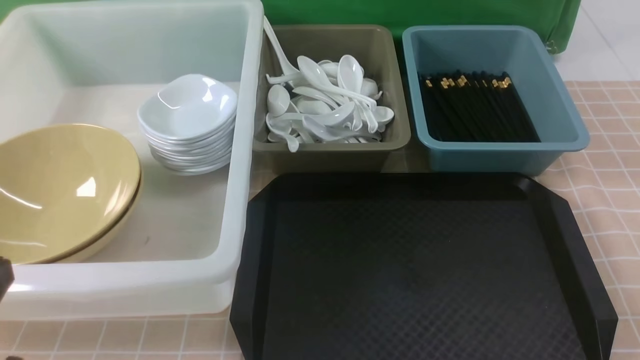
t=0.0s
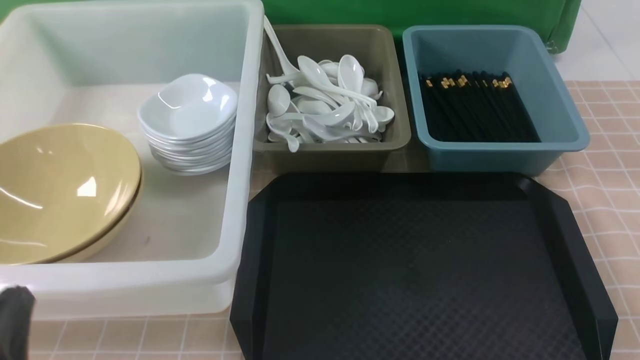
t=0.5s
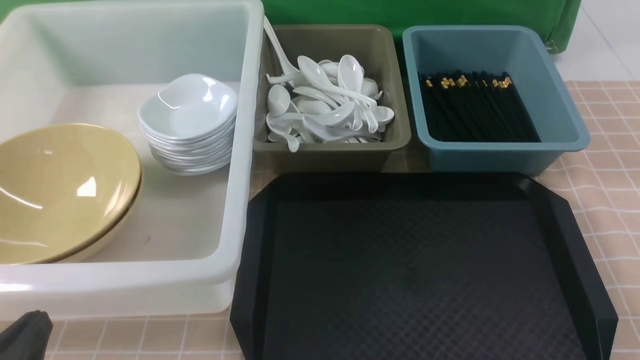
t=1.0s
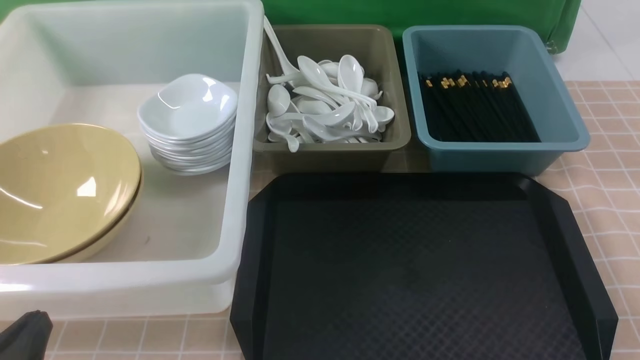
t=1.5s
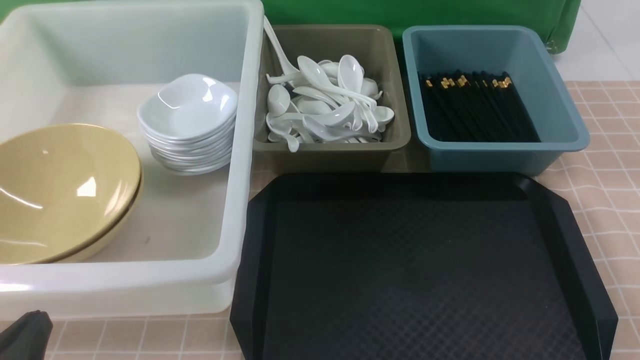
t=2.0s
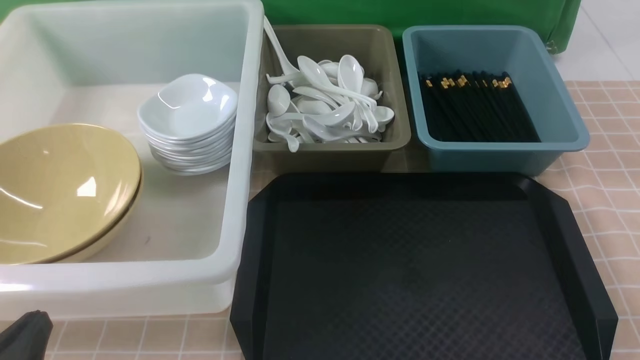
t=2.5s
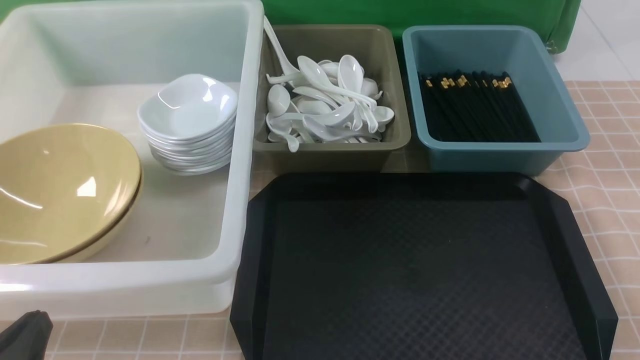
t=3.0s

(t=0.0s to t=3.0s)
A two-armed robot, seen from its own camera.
Task of the whole recording: on brown table put chopsticks spoon bowls plates into blue grey white boxes.
t=0.0s - t=1.5s: The left gripper heads downward, covering some 10 cm.
t=1.5s - t=3.0s: The two grippers keep their place.

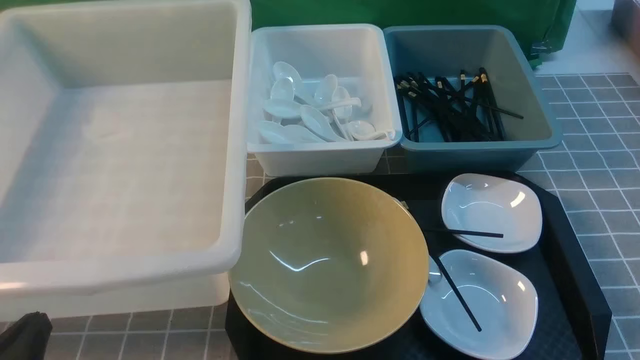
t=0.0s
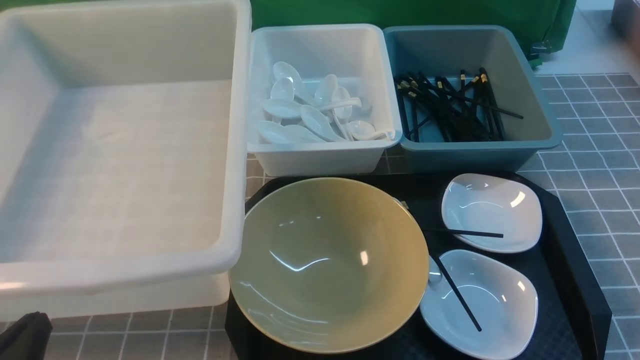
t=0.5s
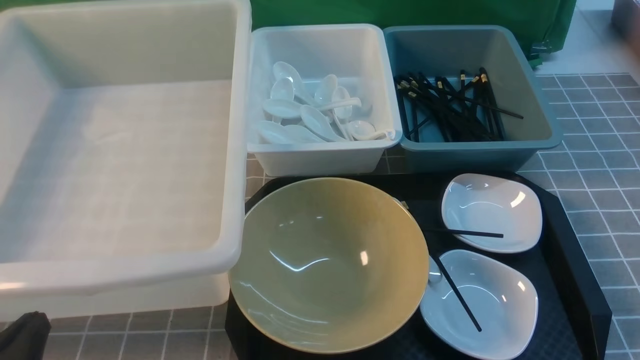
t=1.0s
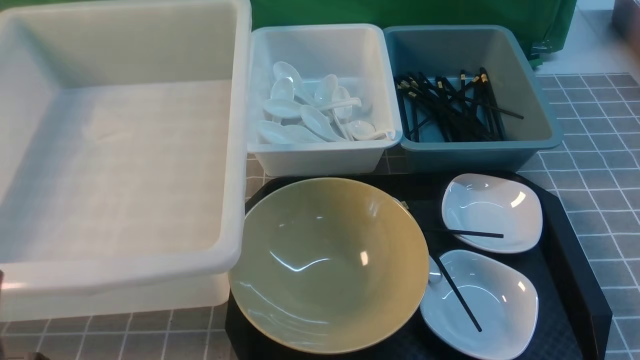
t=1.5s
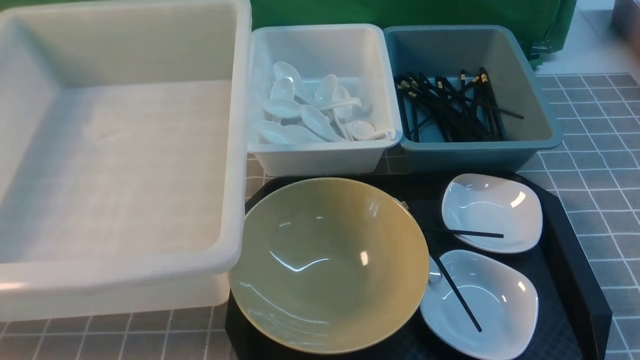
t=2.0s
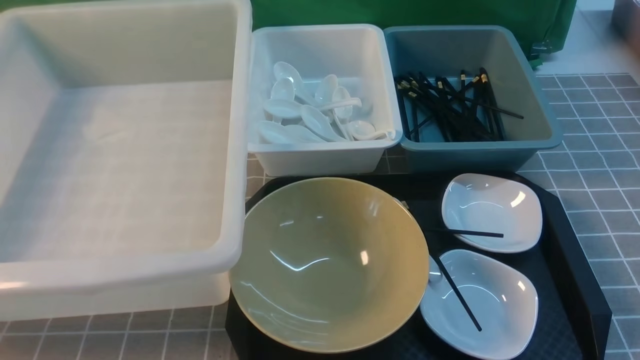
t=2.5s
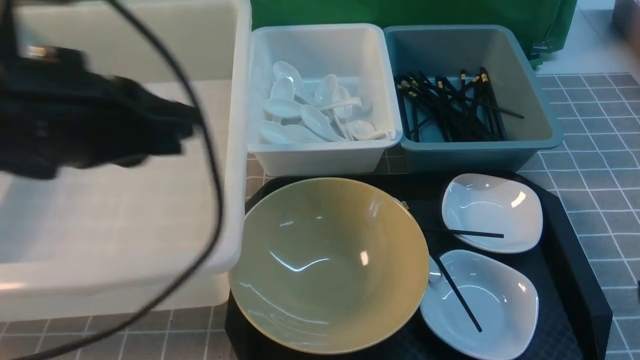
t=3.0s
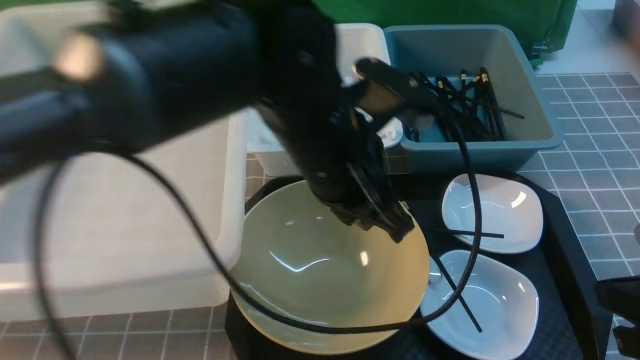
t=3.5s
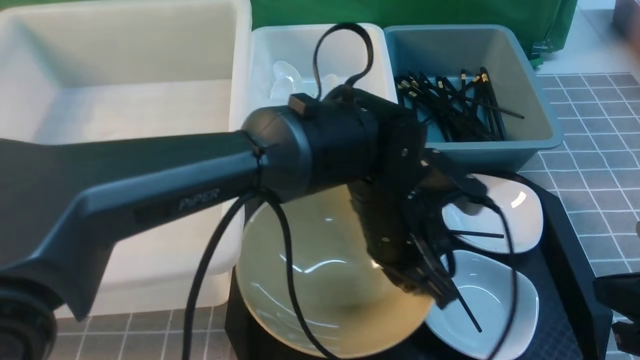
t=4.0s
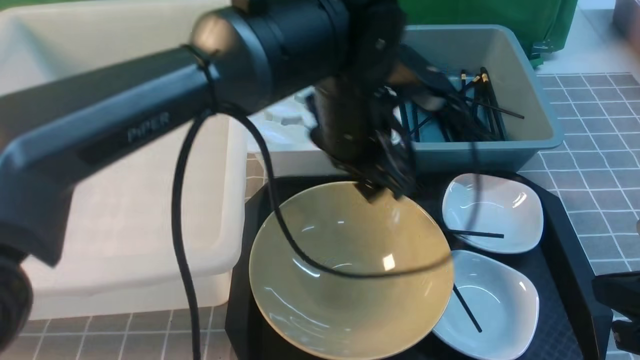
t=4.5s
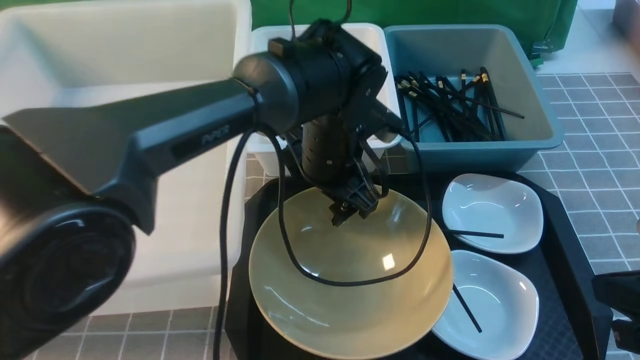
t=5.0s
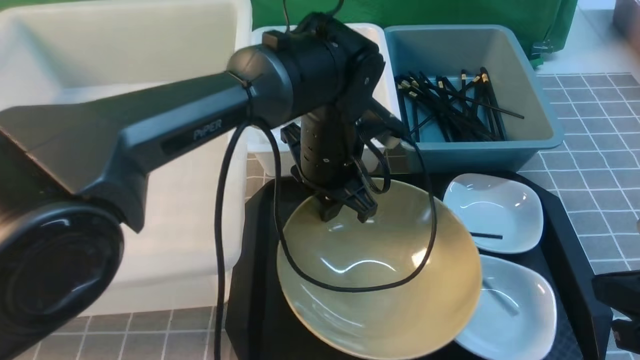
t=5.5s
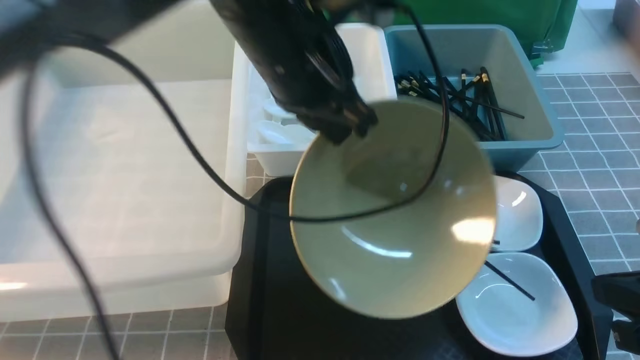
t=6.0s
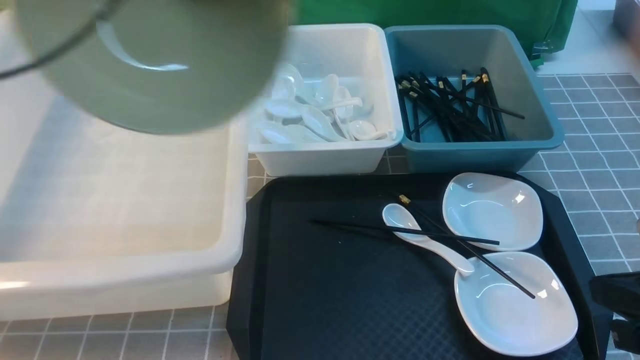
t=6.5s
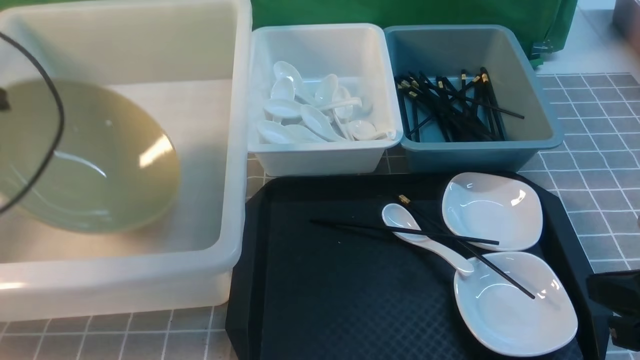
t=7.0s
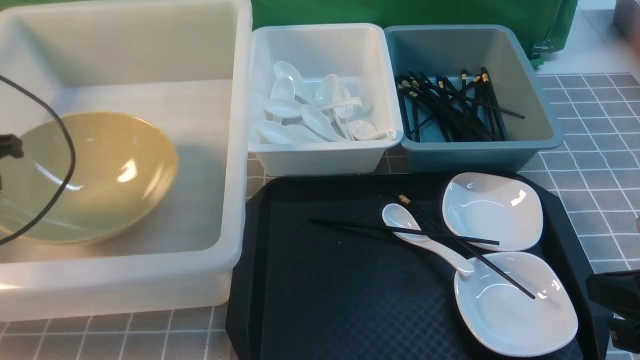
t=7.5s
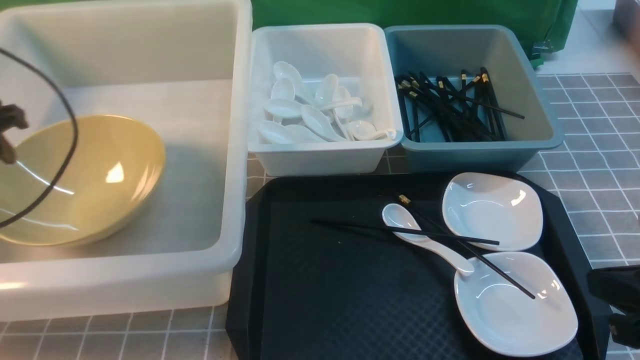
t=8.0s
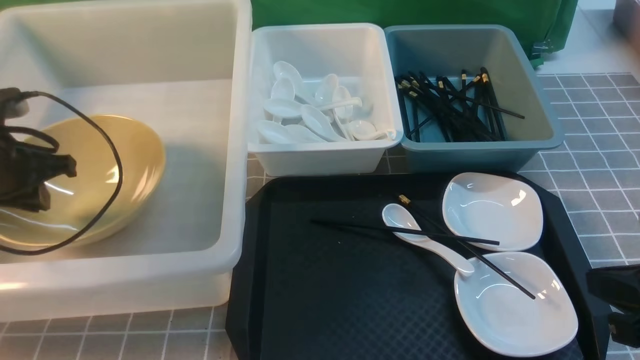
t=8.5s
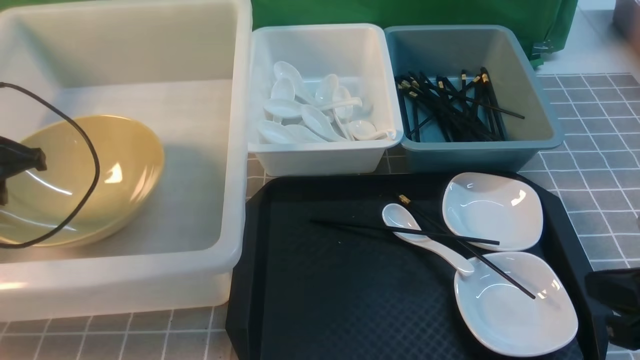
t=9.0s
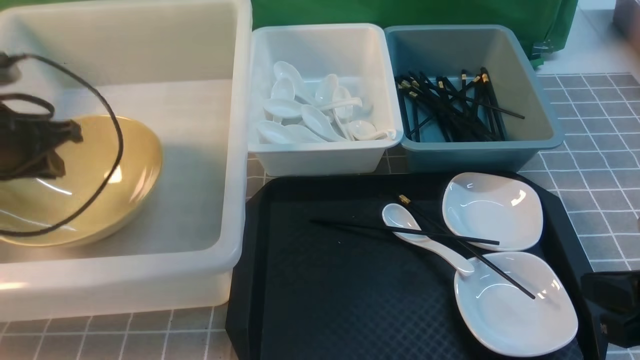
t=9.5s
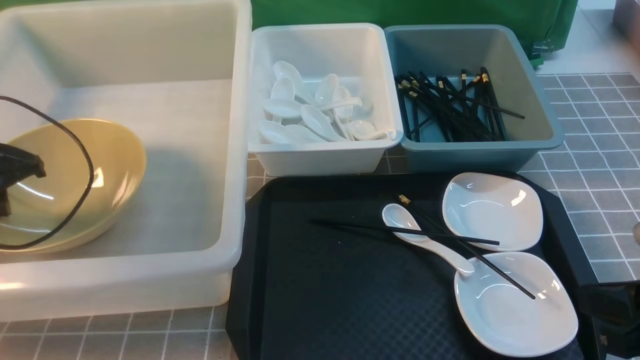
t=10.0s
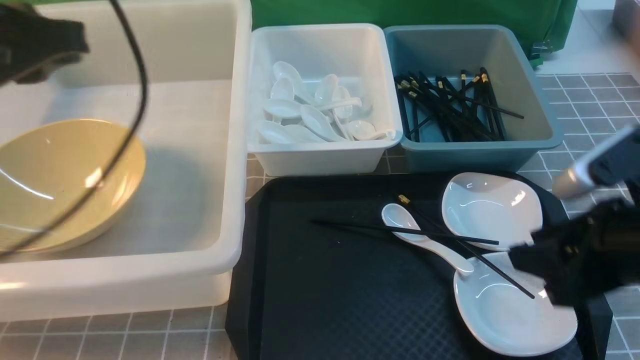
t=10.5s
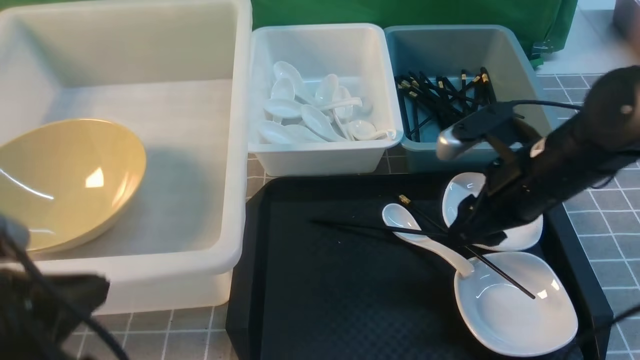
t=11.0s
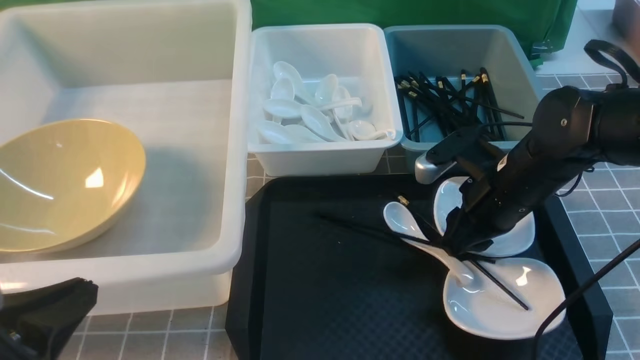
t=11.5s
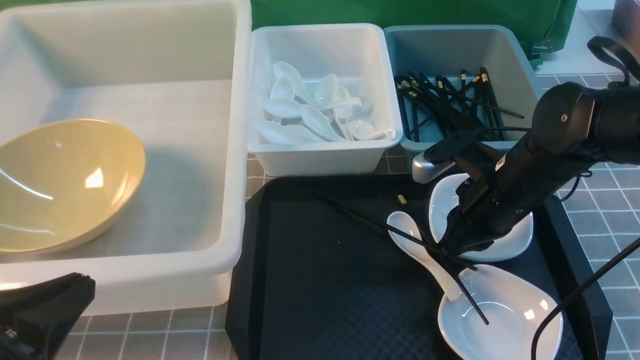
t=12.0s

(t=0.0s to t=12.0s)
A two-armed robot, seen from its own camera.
Task of the whole recording: on grey table put chopsticks spoon bowls plates into blue grey white boxes.
Step, t=0.0s - t=5.5s: use the left arm to grab the yellow noodle bowl on the left.
Step, t=6.0s - t=10.0s: use the left arm to put the noodle bowl into the large storage box on the left.
t=0.0s - t=2.0s: The left gripper travels upward by about 10 cm.
t=2.0s - t=4.0s: The left gripper shifts some 40 cm to the right and forward. The right gripper goes roughly 10 cm forward, and closes.
t=4.0s - t=6.0s: The left gripper goes up and down, some 15 cm each way, reversing 2 times, and opens, then closes again.
t=6.0s - t=8.0s: The left gripper goes about 30 cm to the left, and opens its fingers.
t=8.0s - t=10.0s: The left gripper closes up.
t=10.0s - t=12.0s: The left gripper is displaced backward and to the right by about 30 cm; the right gripper goes approximately 20 cm forward and to the left, and opens, then closes again.

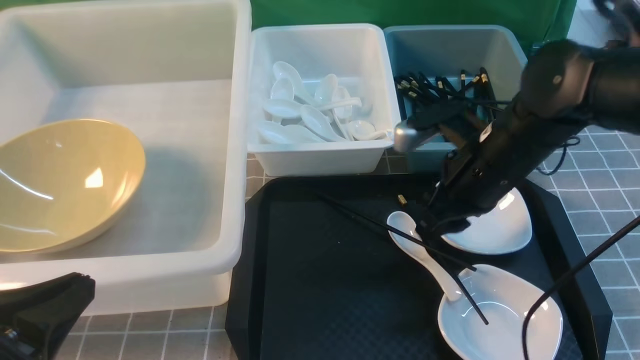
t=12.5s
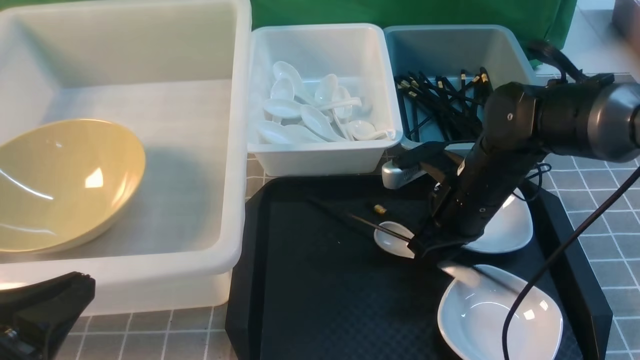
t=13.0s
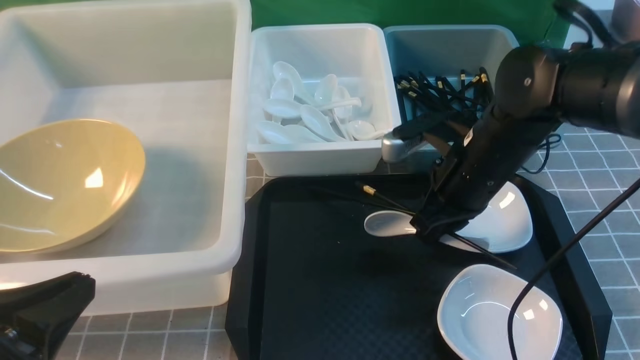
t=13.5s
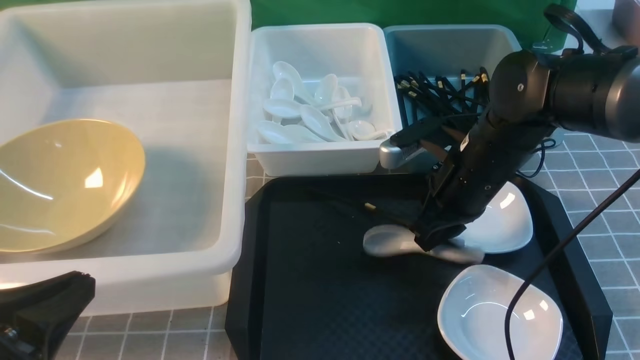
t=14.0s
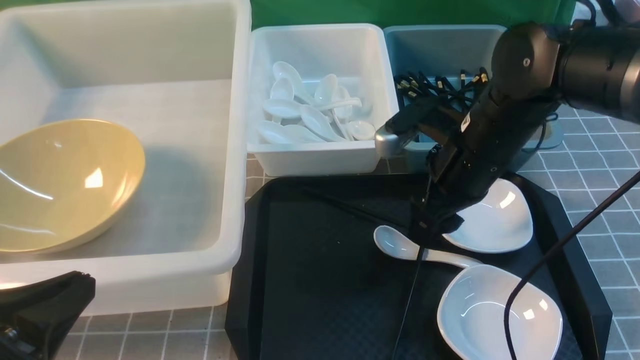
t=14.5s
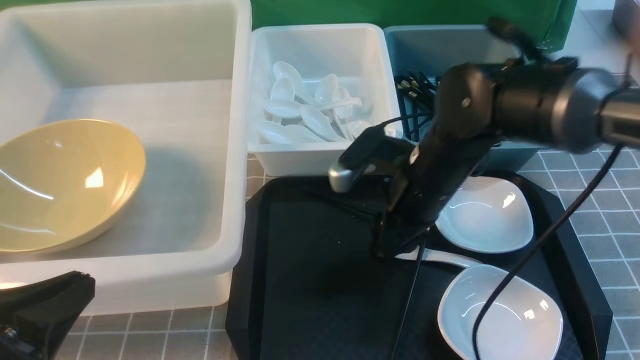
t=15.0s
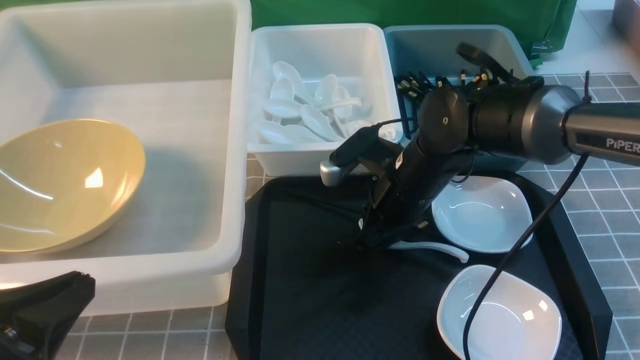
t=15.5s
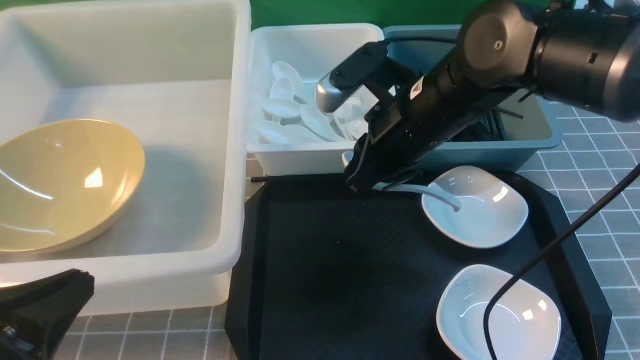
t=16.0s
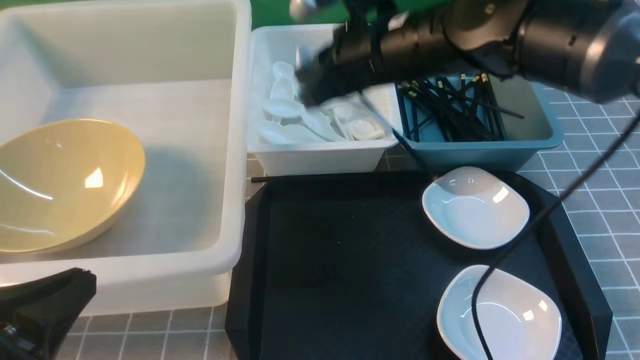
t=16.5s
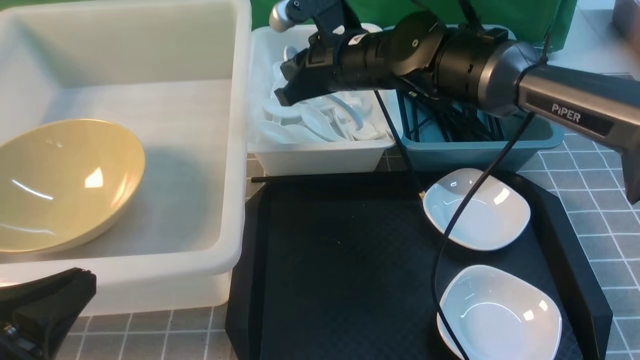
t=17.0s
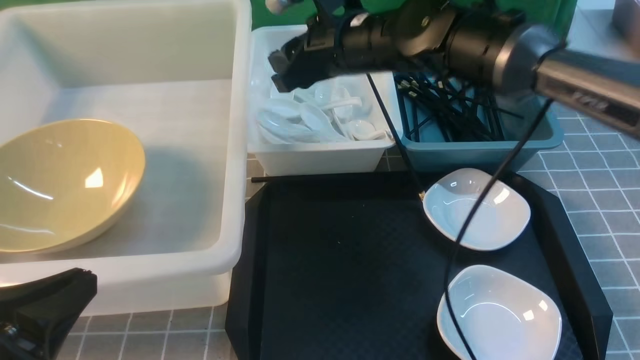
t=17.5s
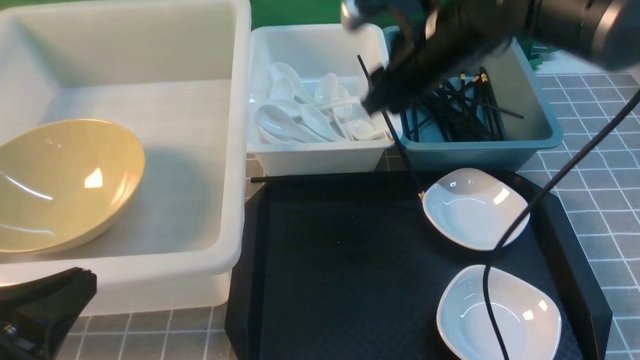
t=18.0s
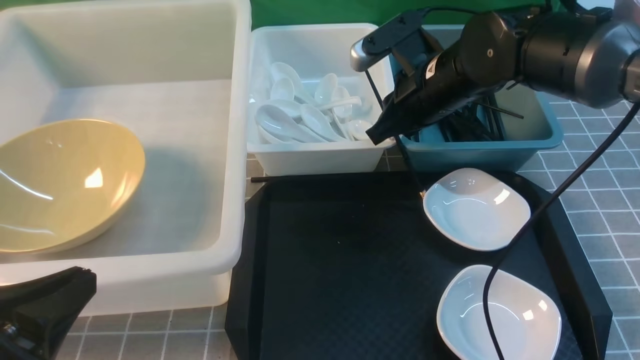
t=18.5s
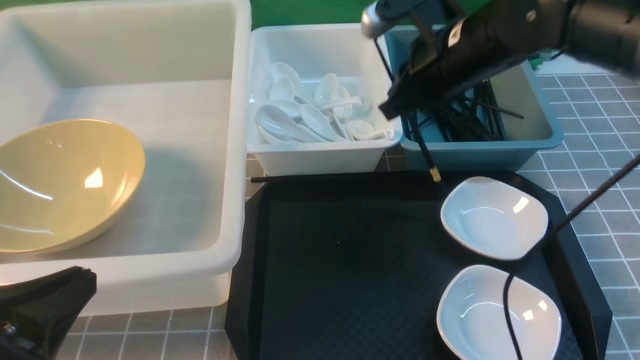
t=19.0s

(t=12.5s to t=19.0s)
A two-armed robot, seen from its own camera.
Task of the whole recording: on grey table put chopsticks spoon bowls plates into blue grey white boxes.
Step, t=12.5s - t=15.5s: use the right arm to grab the soup spoon in the middle.
Step, t=16.0s - t=17.5s: use the right arm to put the soup spoon into the small storage box in the middle.
Step, t=18.0s - t=18.5s: use the right arm to grab a chopstick.
t=12.5s - t=14.5s: The right gripper closes, then opens again.
t=14.5s - t=17.0s: The right gripper is displaced forward and to the left by about 15 cm, and closes its fingers.
t=17.0s - t=19.0s: The right gripper shifts roughly 10 cm to the right, backward and upward, and opens and closes again.
